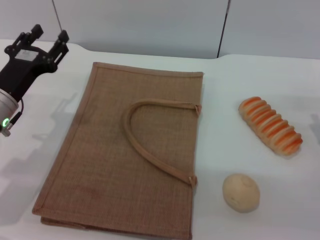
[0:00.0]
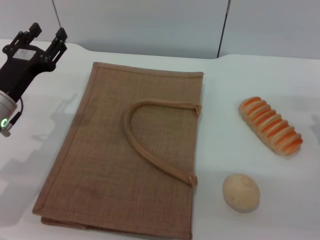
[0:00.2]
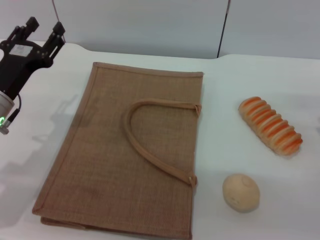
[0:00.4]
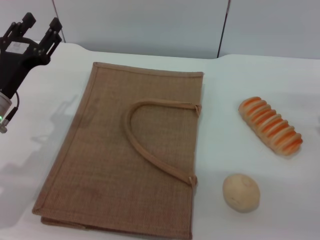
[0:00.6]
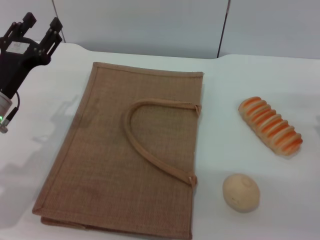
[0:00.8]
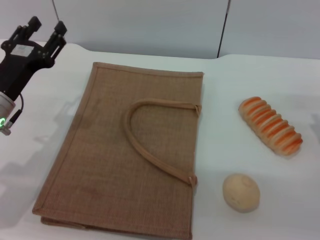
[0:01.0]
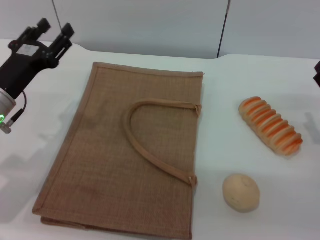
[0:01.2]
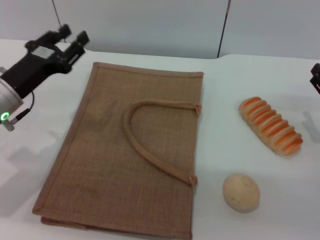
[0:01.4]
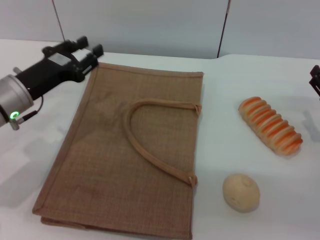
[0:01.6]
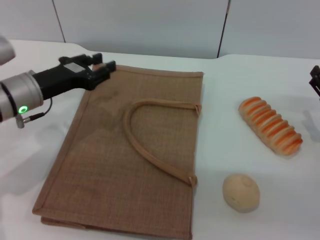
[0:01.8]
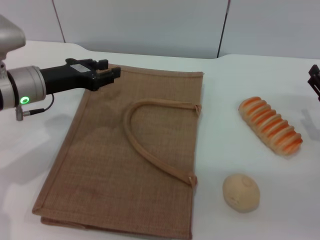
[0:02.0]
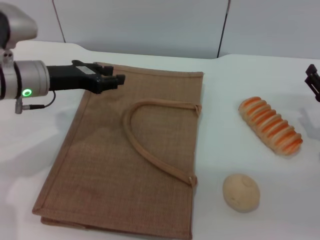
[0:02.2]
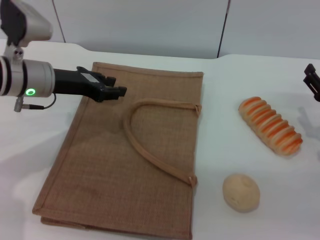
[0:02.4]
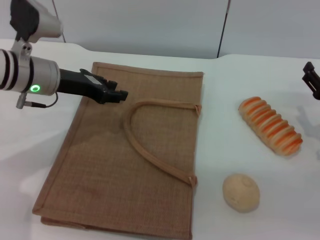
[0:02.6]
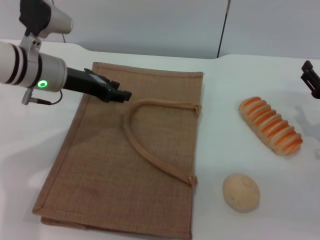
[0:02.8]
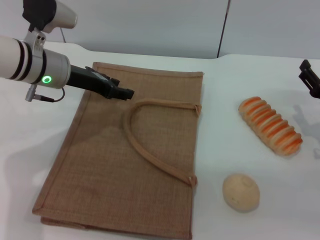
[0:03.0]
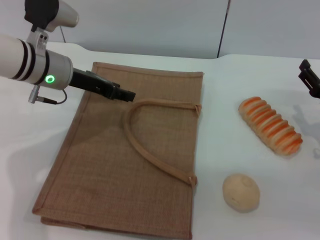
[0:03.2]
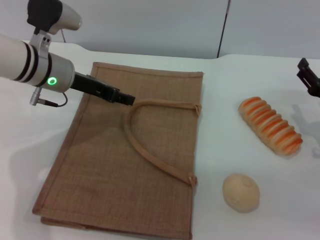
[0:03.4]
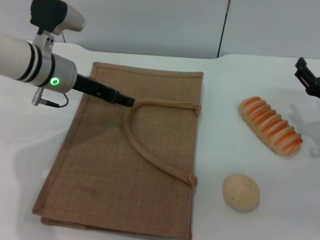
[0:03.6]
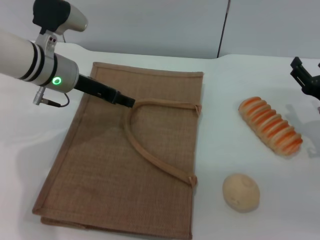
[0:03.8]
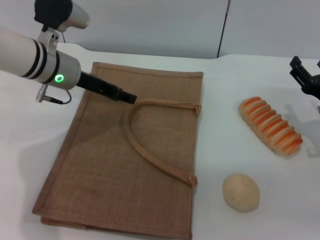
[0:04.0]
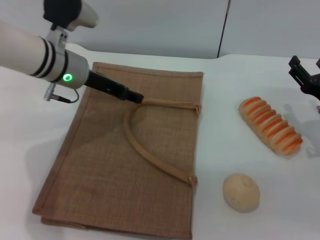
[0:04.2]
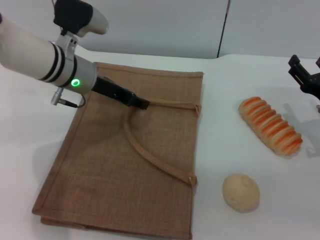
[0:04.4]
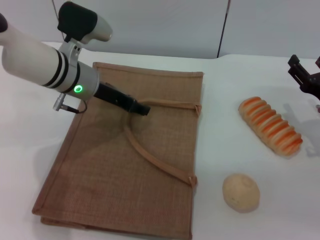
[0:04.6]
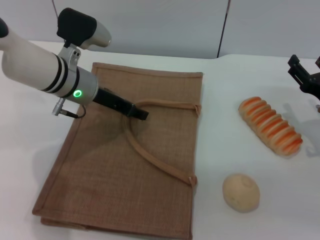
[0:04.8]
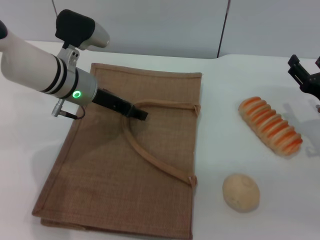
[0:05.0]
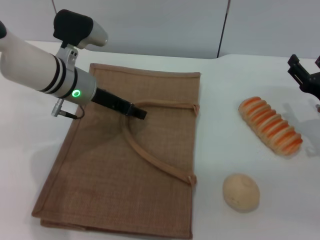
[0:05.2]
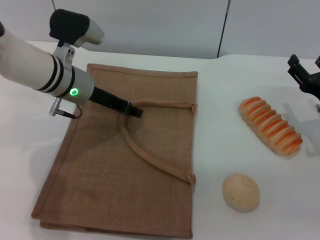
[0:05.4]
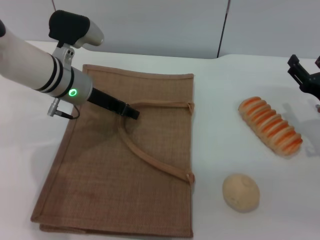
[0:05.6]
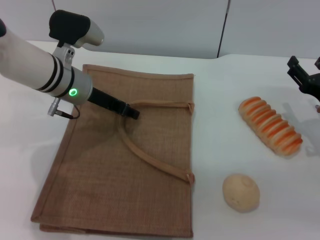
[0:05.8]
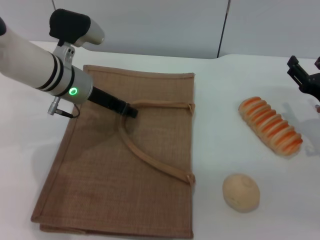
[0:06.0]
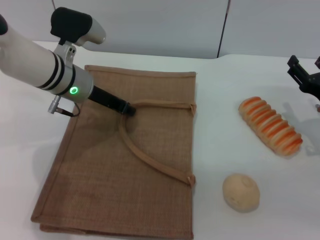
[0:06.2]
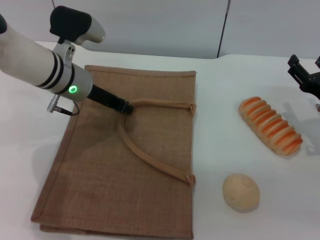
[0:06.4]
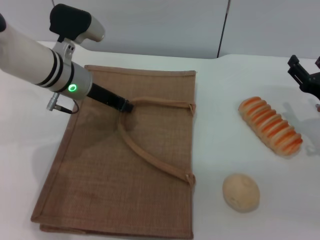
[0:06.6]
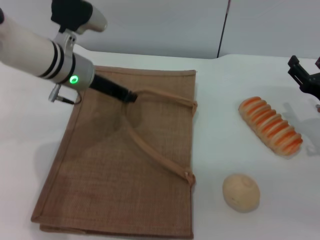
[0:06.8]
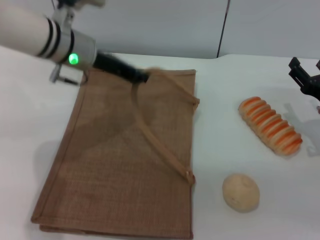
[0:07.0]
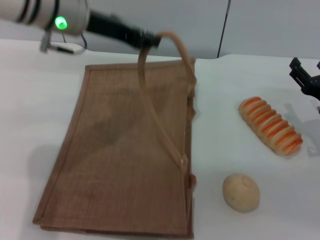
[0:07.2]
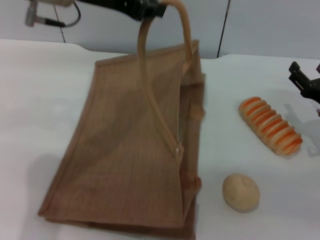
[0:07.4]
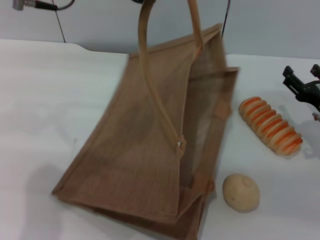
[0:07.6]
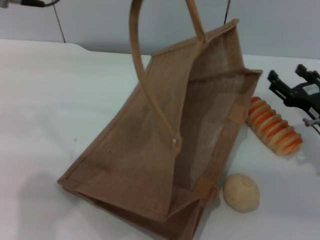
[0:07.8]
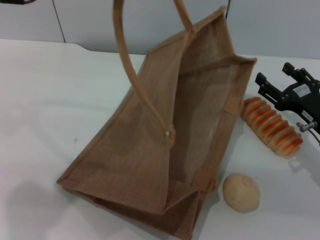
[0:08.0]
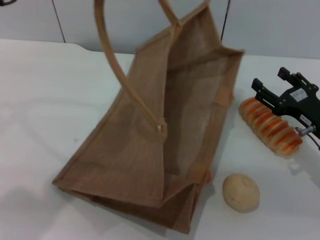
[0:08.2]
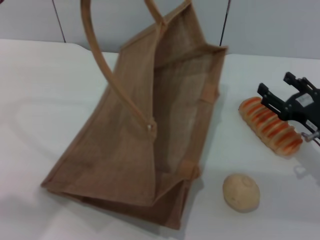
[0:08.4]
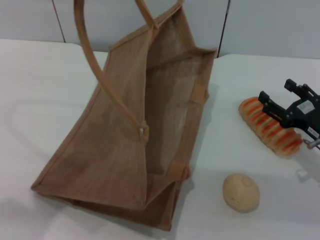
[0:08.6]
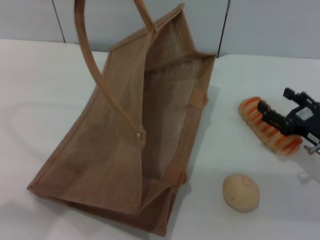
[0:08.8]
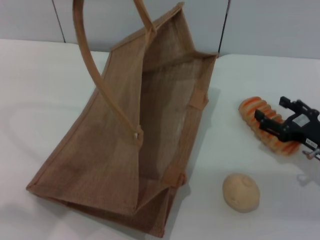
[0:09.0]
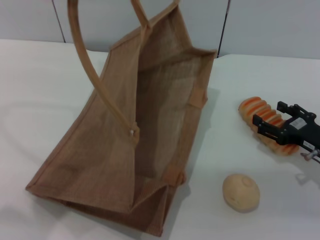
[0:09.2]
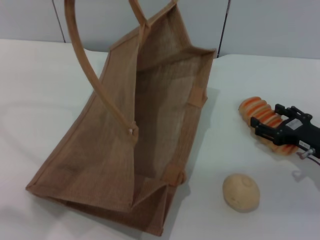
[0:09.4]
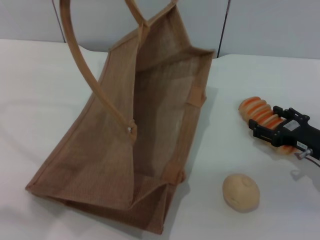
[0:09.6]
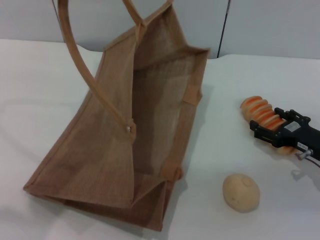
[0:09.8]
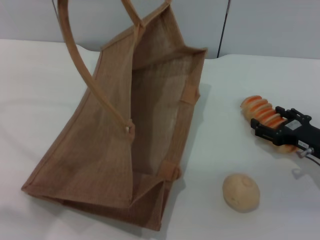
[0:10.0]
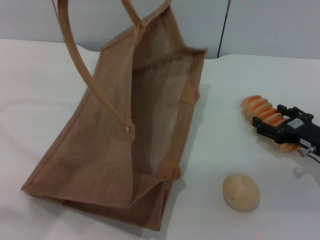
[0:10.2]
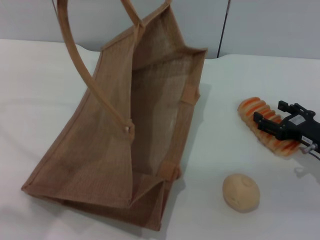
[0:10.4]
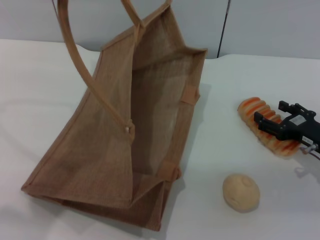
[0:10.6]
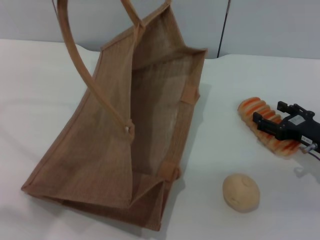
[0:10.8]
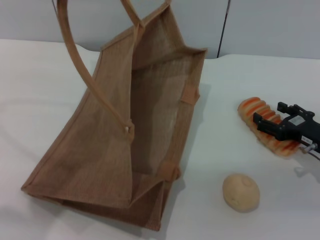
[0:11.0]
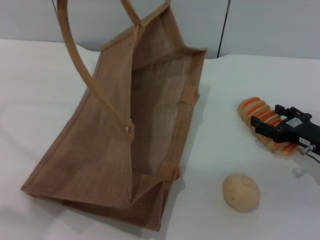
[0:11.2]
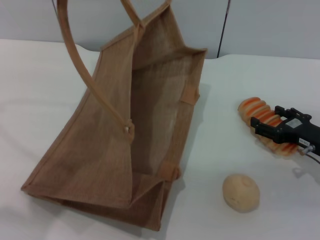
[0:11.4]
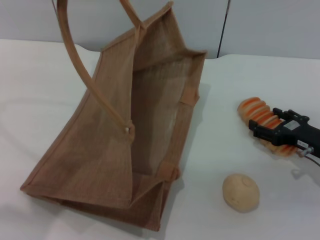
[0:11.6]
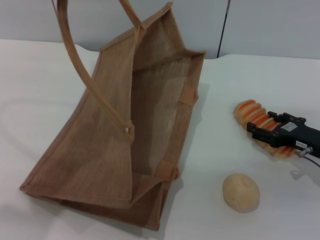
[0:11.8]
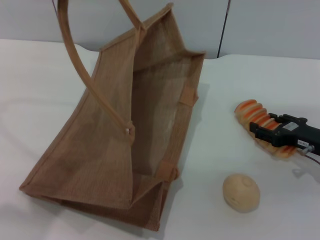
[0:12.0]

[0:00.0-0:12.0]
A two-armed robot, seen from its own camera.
Task of the whole recording: pick up the bread and egg yolk pastry from the table and place it in the brown handbag.
Step, 0:00.0 to 0:07.2: Lift the woven bag with the left gripper to open it.
0:01.6 to 0:03.0: The left gripper is displaced forward by roughly 5 cm.
0:03.0 to 0:06.0: There are only small adjustments of the grippers.
0:06.0 to 0:07.6: The left gripper travels upward by about 20 cm, and closes.
0:07.6 to 0:09.0: The left gripper moves to the left and backward, roughly 5 cm.
0:09.0 to 0:12.0: The grippers make only small movements.

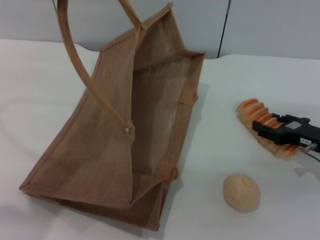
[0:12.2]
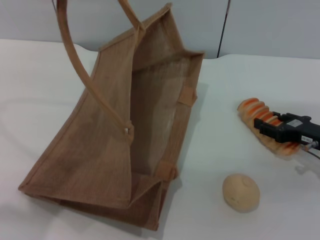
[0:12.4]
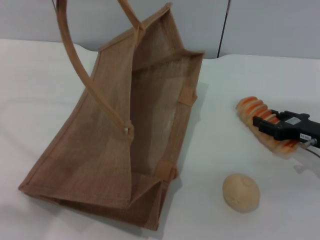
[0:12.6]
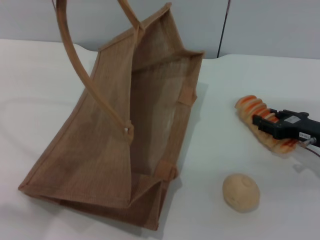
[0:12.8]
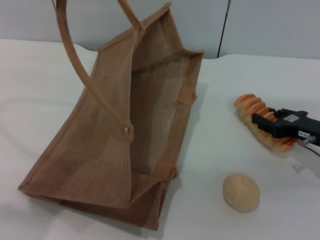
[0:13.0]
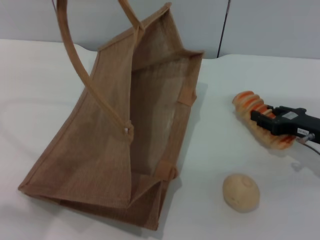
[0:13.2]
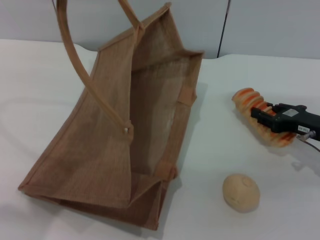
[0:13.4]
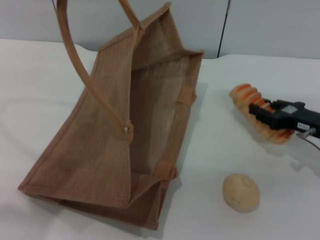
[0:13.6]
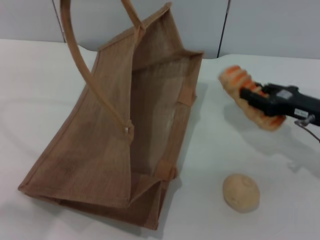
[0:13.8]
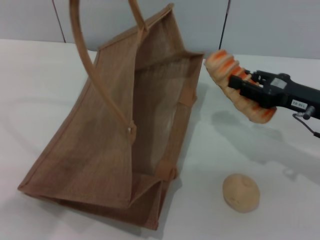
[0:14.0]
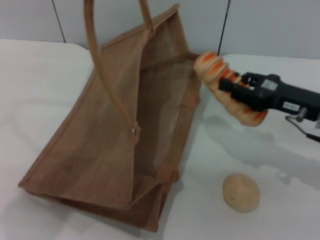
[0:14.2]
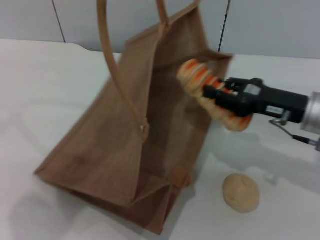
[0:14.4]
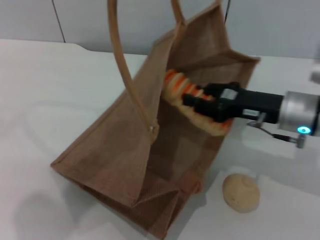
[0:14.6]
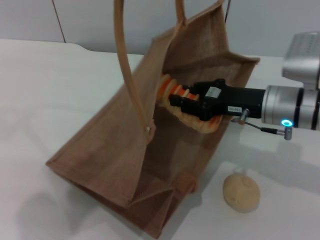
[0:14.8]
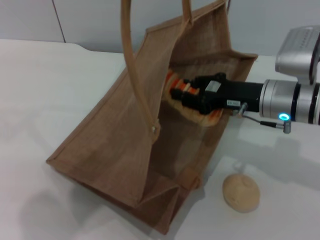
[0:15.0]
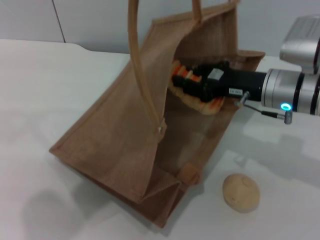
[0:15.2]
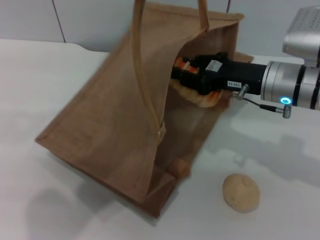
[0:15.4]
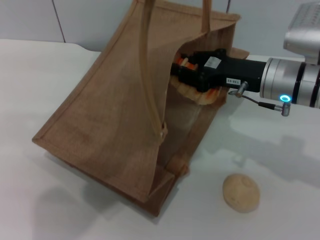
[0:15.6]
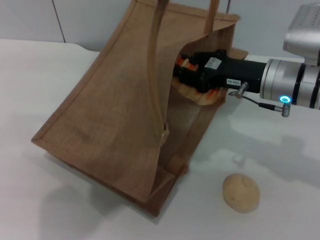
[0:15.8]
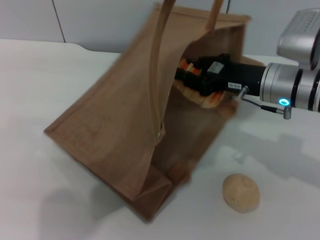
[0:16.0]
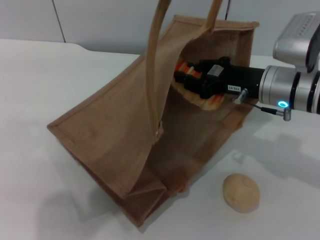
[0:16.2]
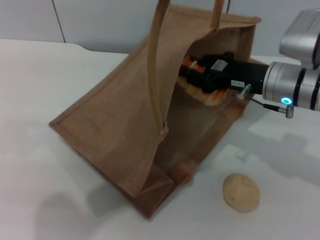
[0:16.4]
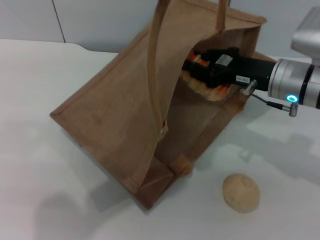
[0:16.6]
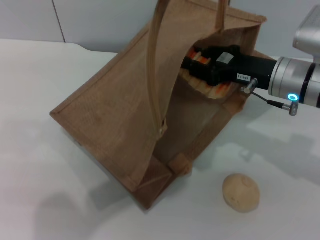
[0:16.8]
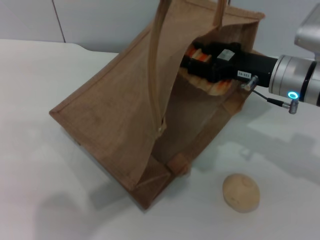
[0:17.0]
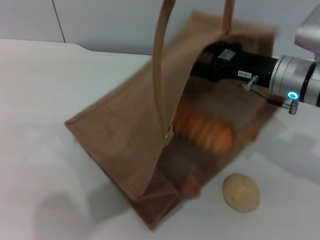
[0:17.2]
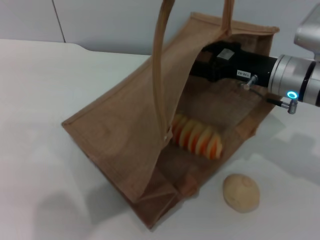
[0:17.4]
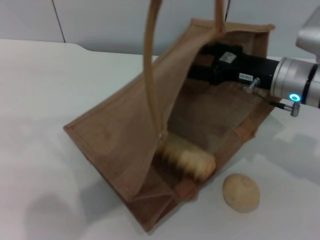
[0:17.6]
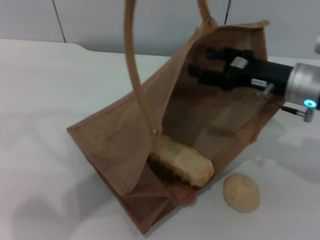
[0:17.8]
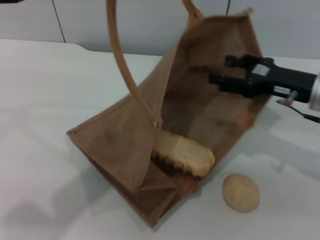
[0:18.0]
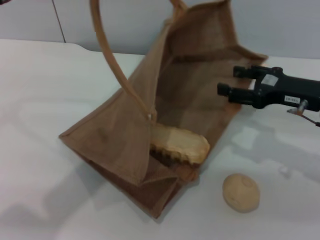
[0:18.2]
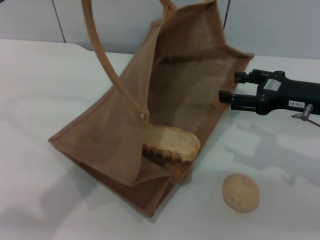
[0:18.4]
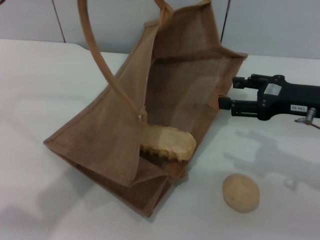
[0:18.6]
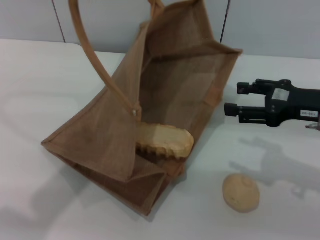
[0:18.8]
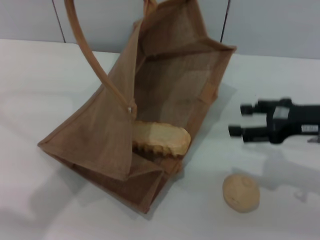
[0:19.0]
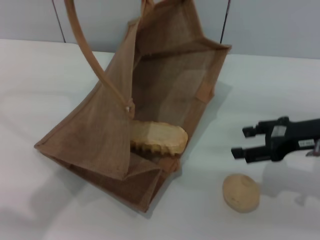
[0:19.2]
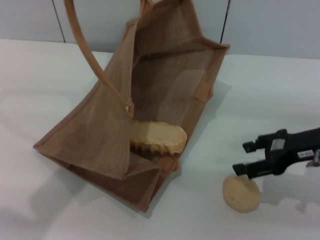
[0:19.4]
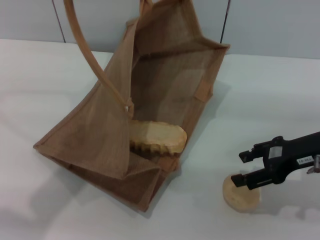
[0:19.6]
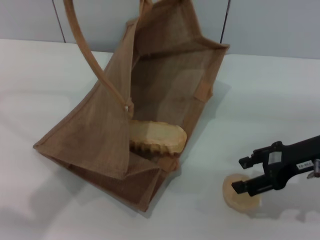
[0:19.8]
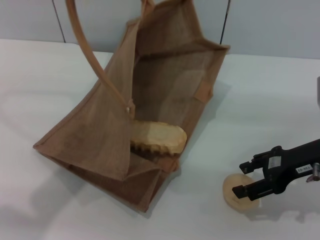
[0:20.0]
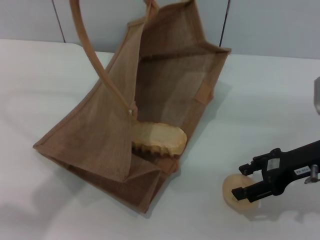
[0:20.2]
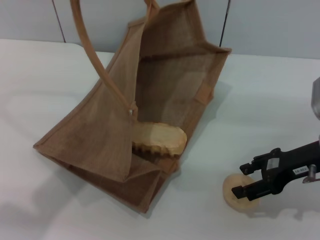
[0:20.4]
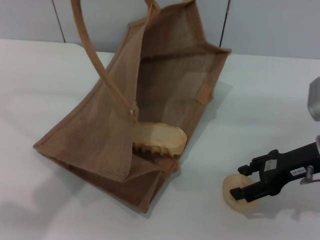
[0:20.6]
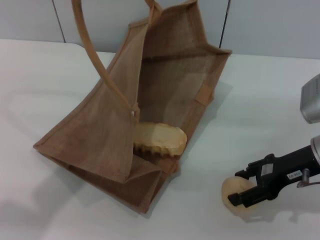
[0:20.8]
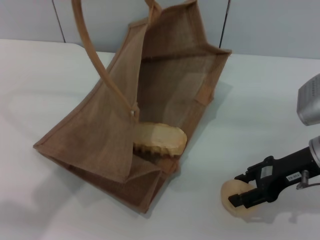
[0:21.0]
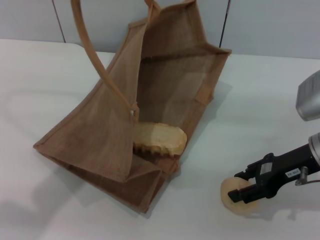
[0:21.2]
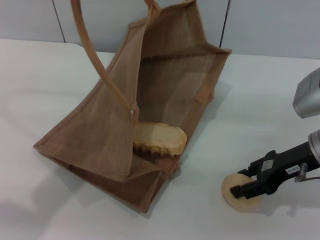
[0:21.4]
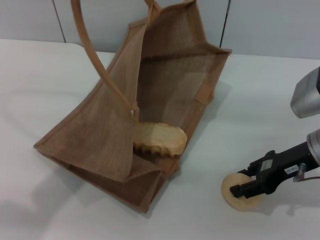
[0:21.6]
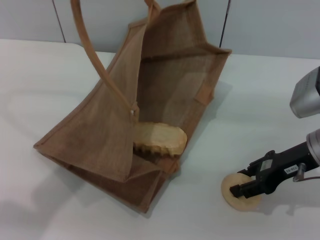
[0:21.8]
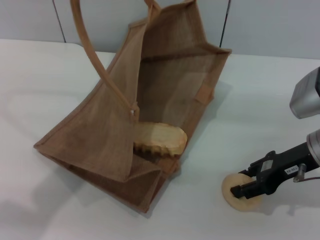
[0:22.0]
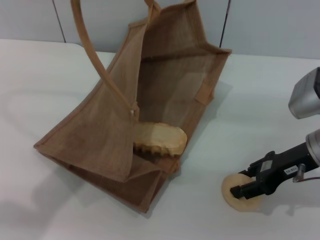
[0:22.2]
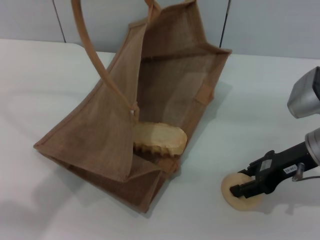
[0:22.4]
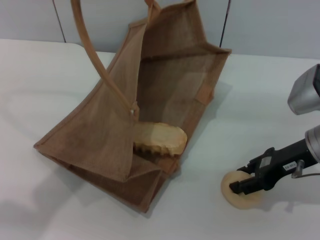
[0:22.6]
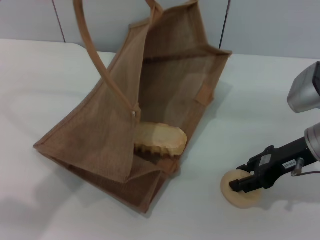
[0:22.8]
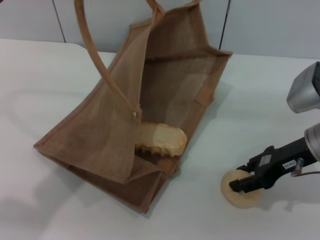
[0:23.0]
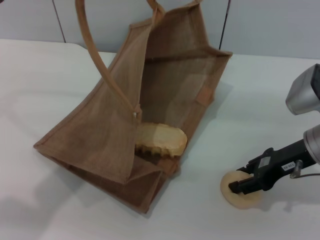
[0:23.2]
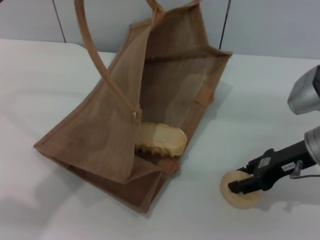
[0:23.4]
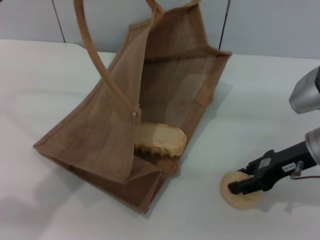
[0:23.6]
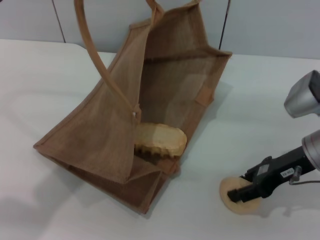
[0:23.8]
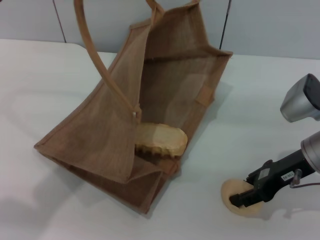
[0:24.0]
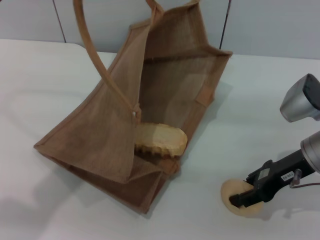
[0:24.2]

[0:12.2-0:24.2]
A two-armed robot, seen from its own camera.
Task of the whole recording: pick up the bread and egg yolk pastry from the table and place it in the brown handbag.
Step, 0:14.2 to 0:18.4: Place the bread into the woven bag with the right gripper.
0:12.2 to 0:13.8: The right gripper ends up roughly 5 cm from where it was, and closes up.
0:13.8 to 0:15.2: The left gripper heads to the right, covering roughly 5 cm; the right gripper moves to the left, roughly 10 cm.
0:16.6 to 0:18.2: The right gripper is displaced to the right by some 5 cm, and opens. Meanwhile the left gripper goes approximately 5 cm to the left.
0:19.8 to 0:21.2: The grippers move only a little.
0:21.2 to 0:22.6: Neither gripper changes place.
0:22.6 to 0:24.2: There are only small adjustments of the grippers.
